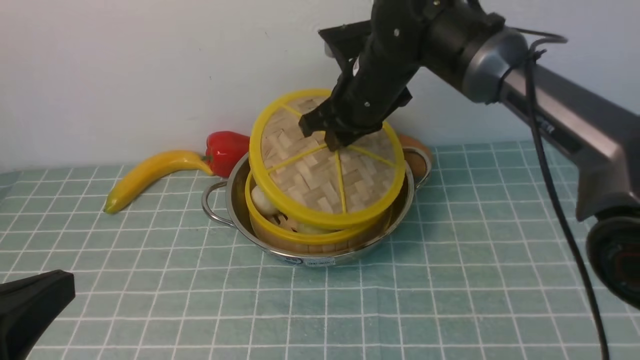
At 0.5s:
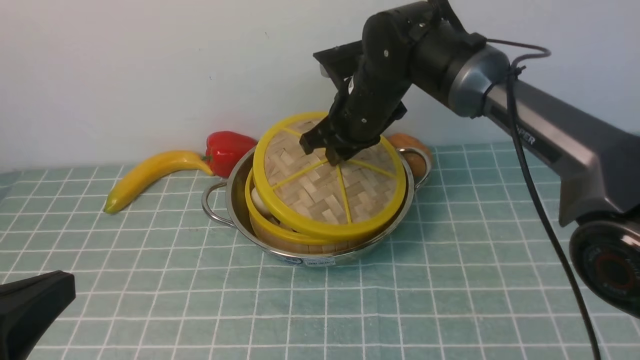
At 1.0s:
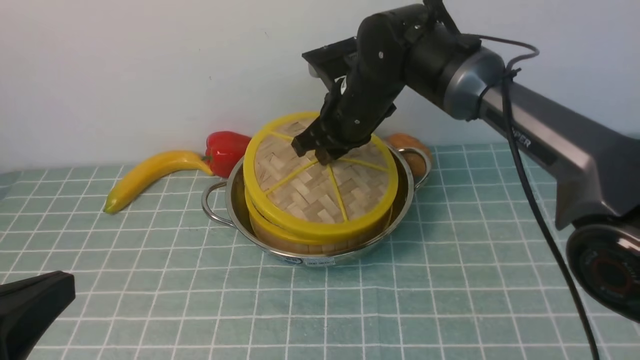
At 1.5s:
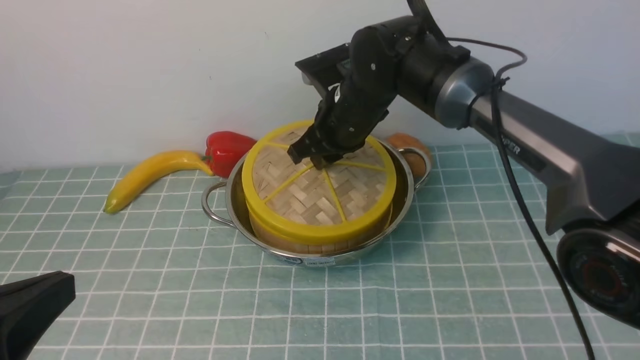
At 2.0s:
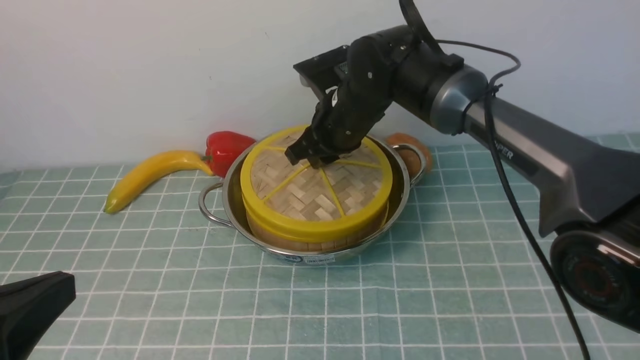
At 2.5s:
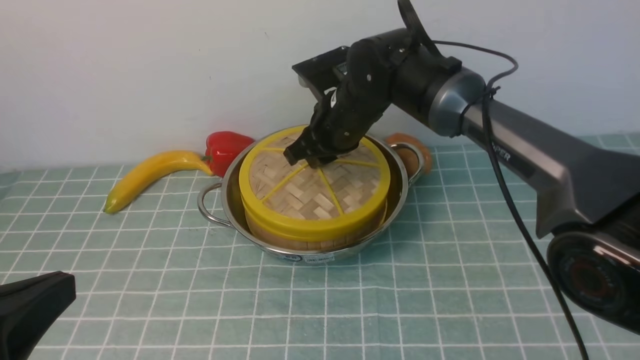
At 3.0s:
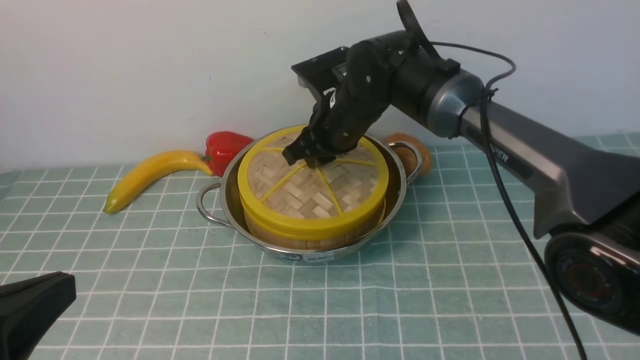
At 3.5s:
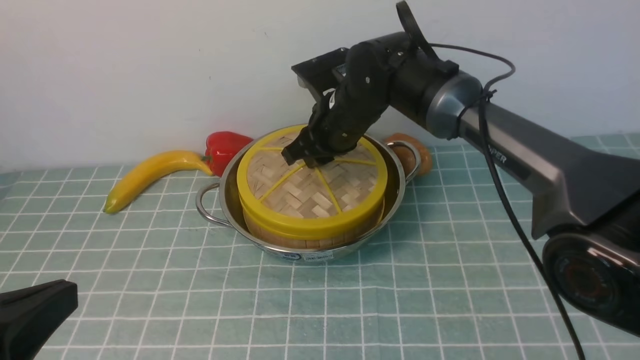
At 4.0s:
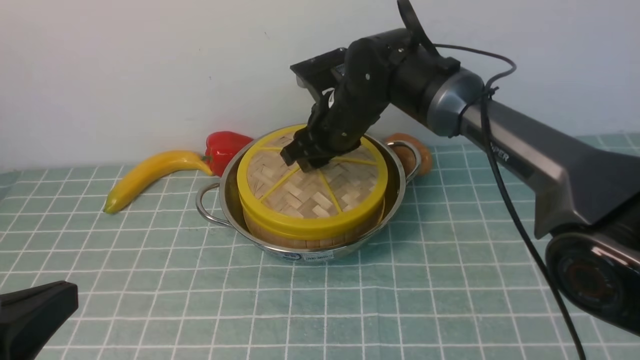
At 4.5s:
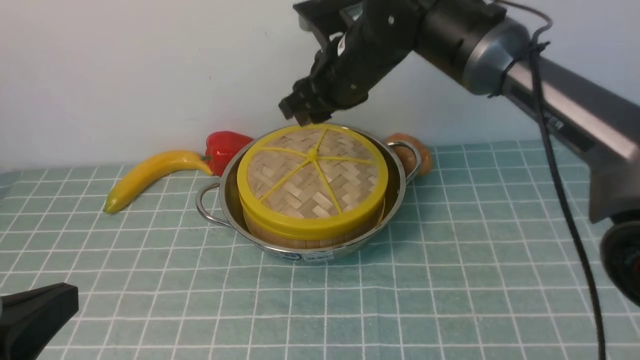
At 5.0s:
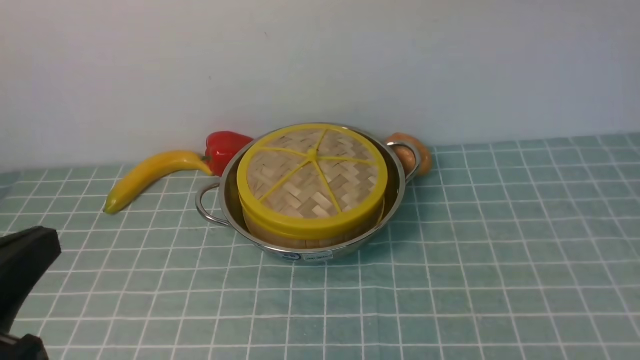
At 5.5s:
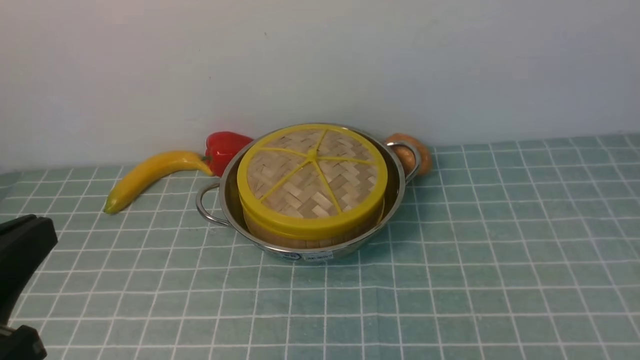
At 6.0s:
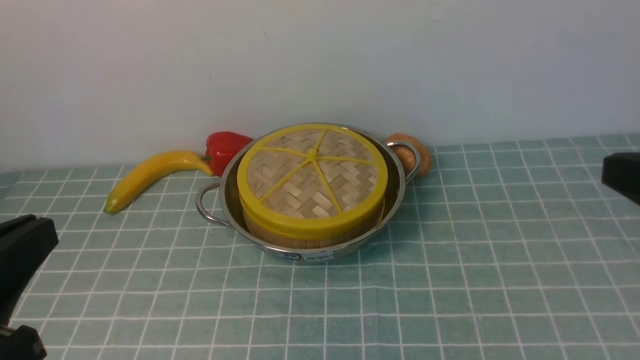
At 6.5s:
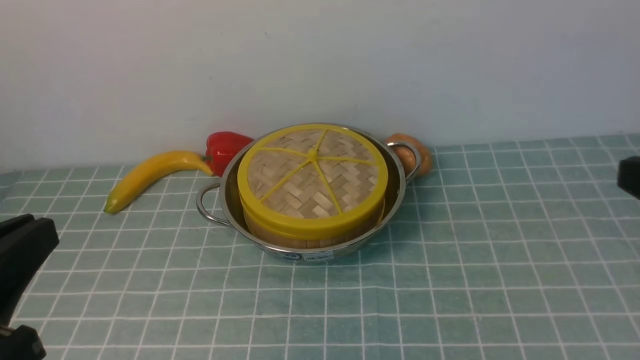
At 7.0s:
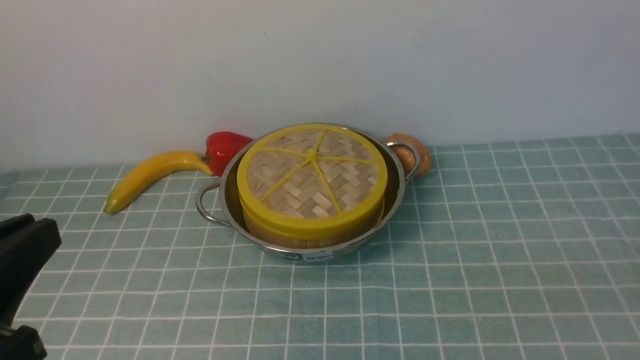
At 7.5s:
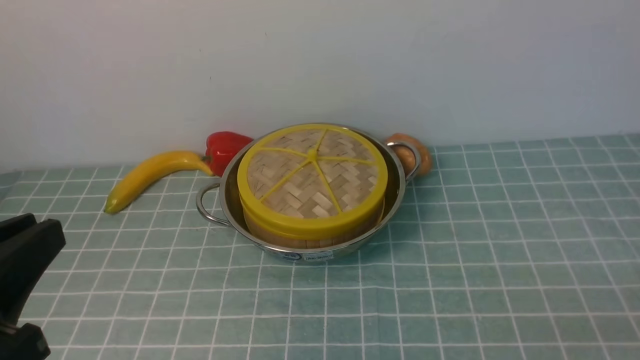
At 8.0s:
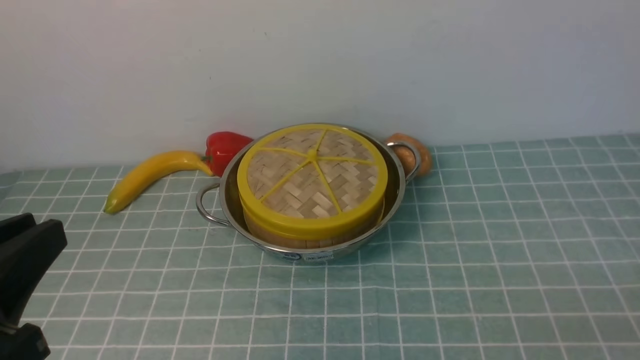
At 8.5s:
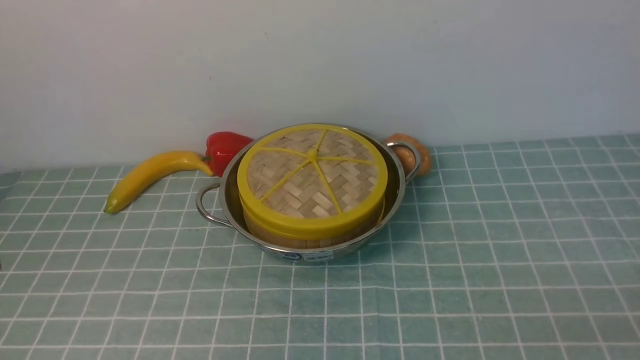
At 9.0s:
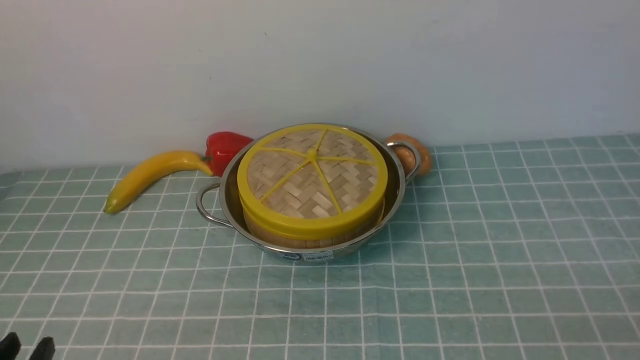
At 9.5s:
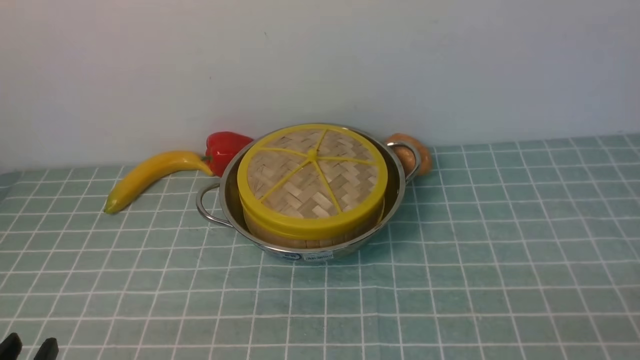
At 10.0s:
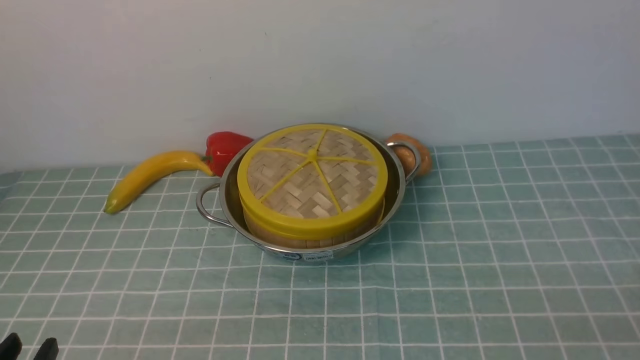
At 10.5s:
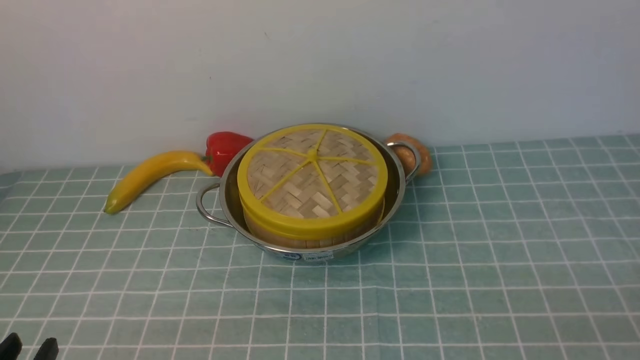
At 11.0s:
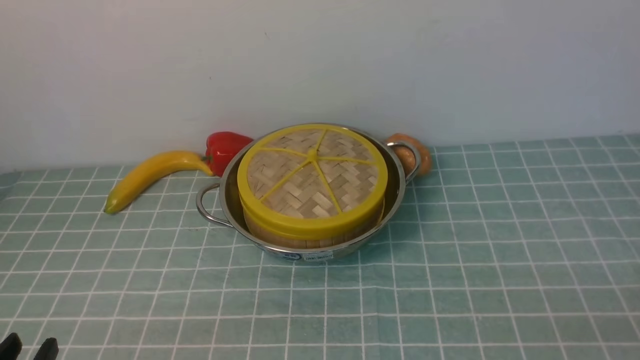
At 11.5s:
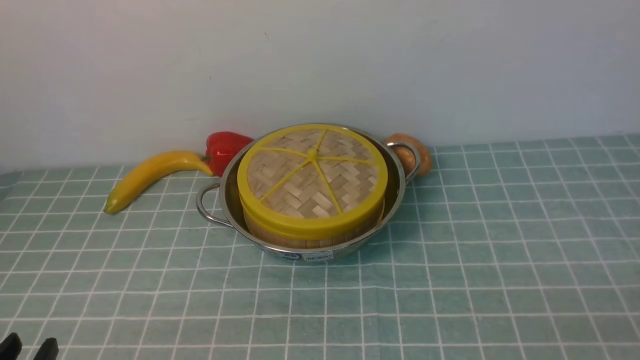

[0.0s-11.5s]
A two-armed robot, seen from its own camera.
Task of the whole recording: place the steamer in the pot on the blue tablecloth, and put the lid on the steamer.
Step, 0.0s to 4.5s: use the right arm to place the steamer lid on the steamer.
0.0s to 2.0s: The grippers move only a little.
2.0s to 4.0s: The right gripper opens.
4.0s to 6.0s: The right gripper travels backward and to the right by roughly 40 cm, and closes its fingers.
6.0s to 7.5s: The right gripper heads downward and backward, covering some 15 cm.
7.5s to 9.5s: The left gripper goes some 15 cm downward.
9.5s to 11.5s: Both grippers stay about where they are.
